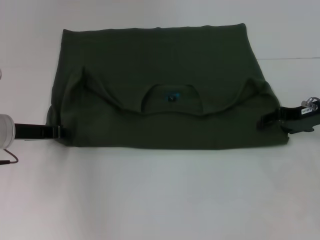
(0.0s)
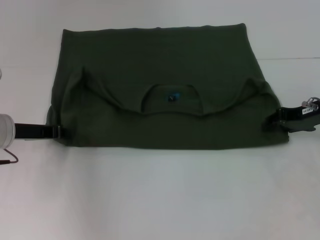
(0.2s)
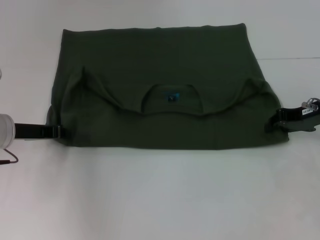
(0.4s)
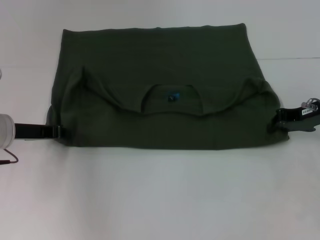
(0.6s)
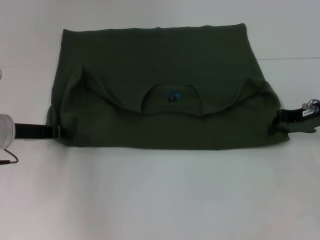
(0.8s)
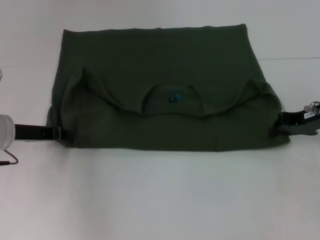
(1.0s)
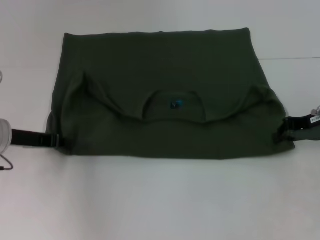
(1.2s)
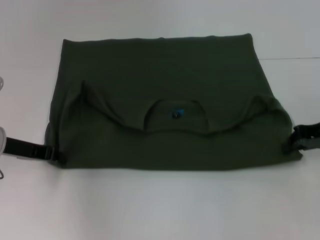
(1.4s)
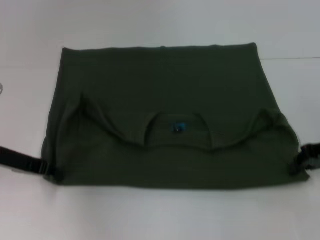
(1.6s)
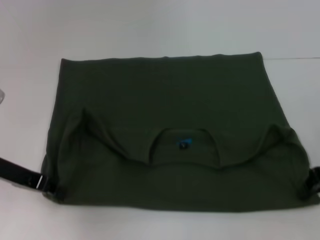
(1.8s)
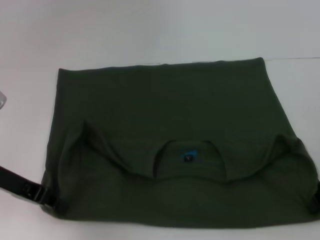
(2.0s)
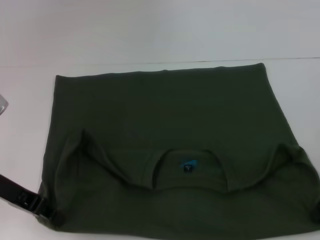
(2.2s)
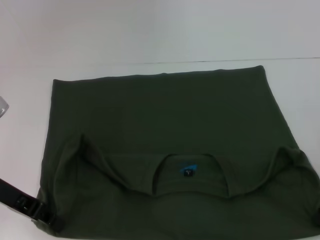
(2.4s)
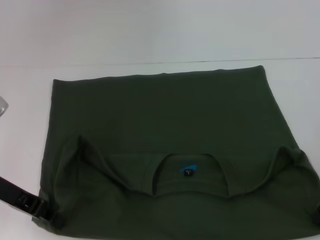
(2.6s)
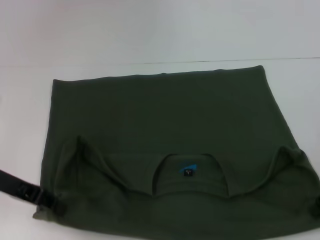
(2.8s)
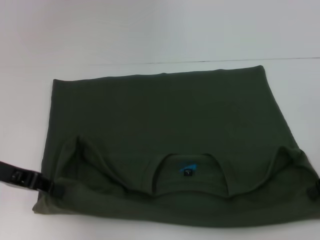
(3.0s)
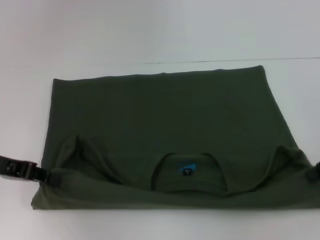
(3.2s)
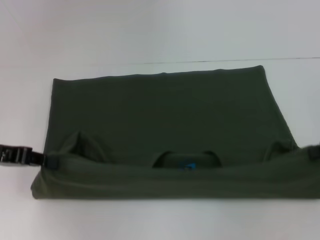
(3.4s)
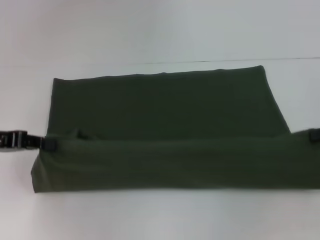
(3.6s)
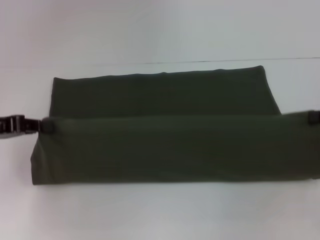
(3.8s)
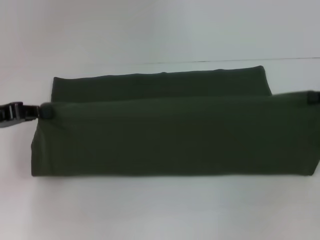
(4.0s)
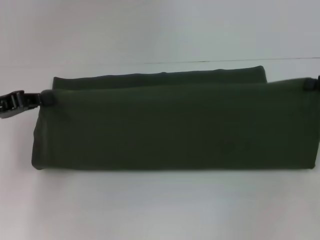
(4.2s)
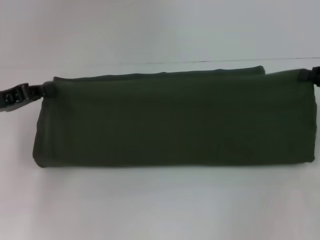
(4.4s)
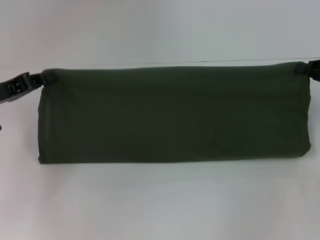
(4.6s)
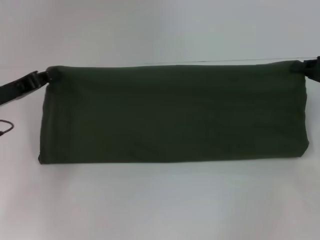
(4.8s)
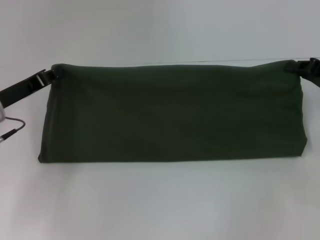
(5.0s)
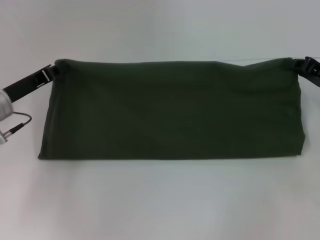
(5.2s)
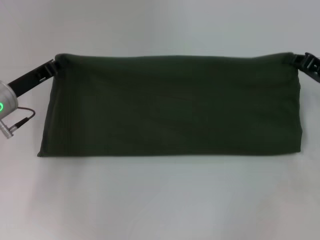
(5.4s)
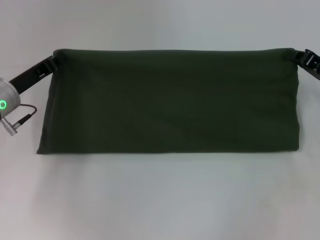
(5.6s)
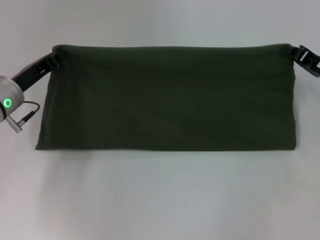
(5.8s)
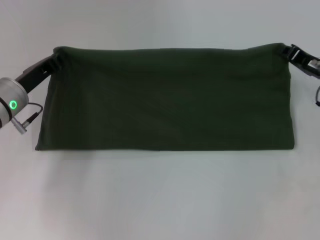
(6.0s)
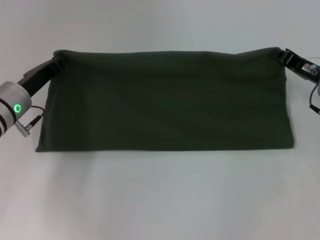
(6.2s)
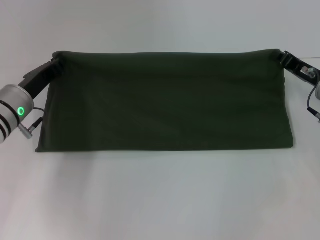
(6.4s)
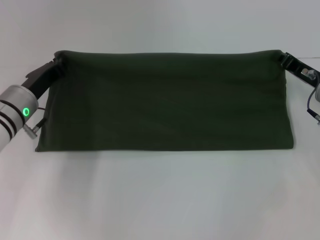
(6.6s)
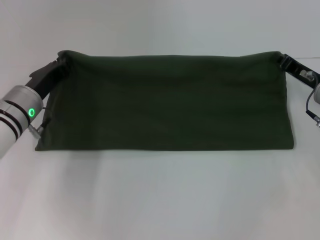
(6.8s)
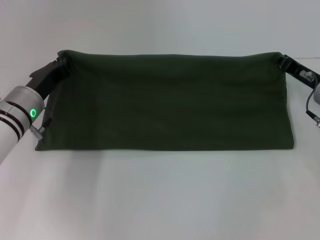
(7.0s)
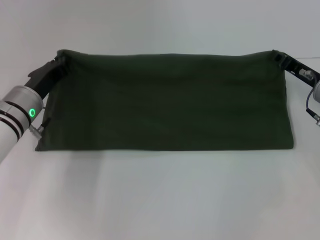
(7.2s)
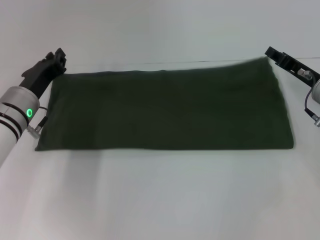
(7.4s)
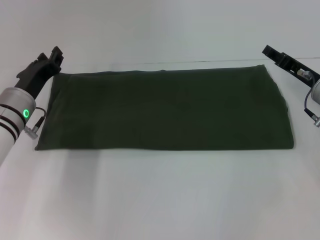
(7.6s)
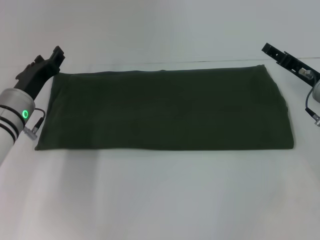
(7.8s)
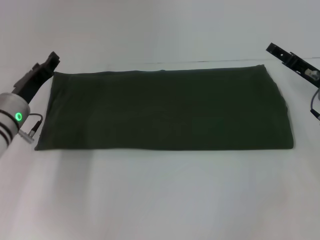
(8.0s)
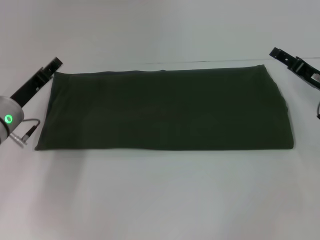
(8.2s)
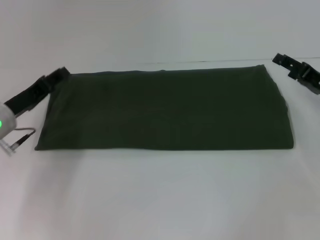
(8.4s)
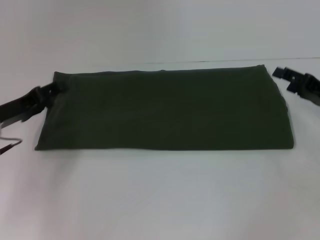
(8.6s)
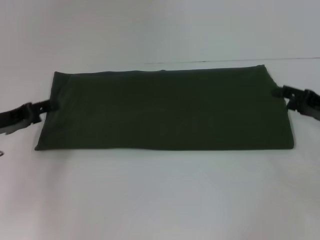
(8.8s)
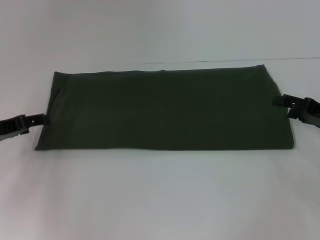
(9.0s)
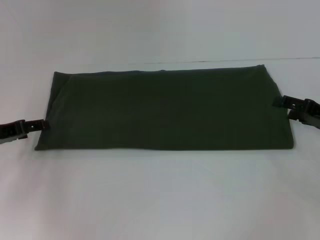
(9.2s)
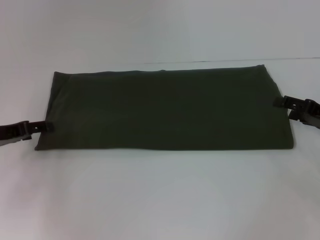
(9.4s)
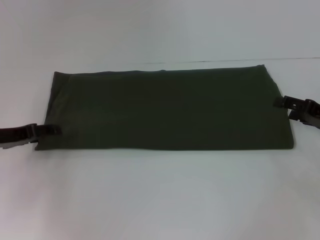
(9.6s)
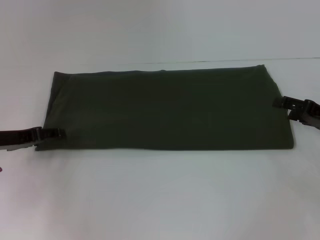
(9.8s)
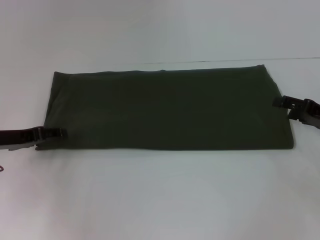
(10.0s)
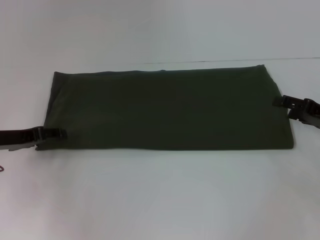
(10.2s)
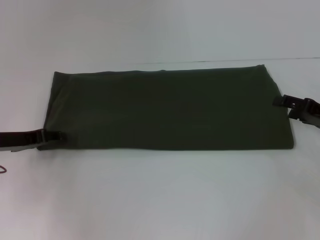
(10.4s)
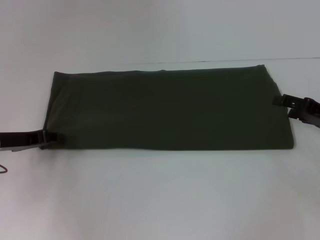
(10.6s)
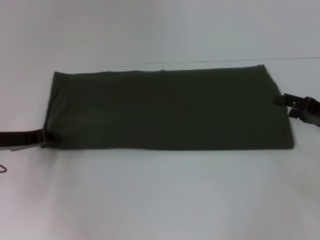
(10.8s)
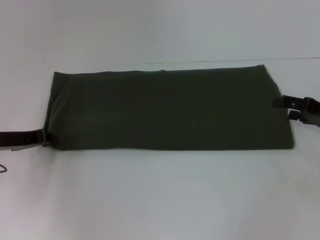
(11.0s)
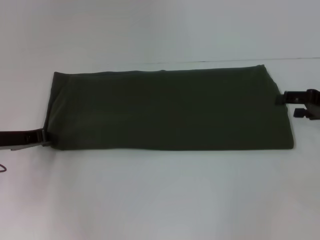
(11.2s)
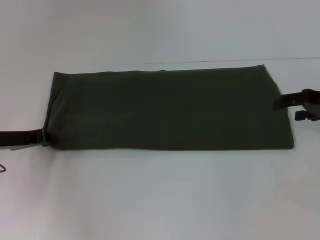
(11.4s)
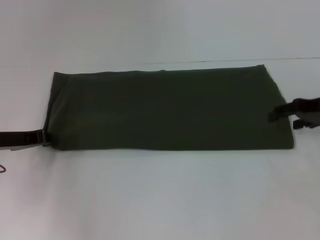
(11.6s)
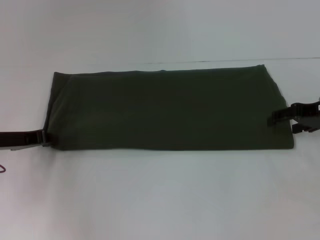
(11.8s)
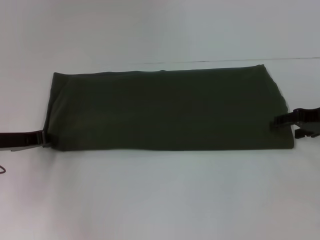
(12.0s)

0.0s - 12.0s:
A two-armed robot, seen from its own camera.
Step, 0.0s - 2.4s: Pull the clothes with your left hand.
Step, 0.0s - 2.4s: Pull the clothes with your right hand.
Step, 2.6s - 7.4s: Fold the clothes with your left hand.
Step, 2.6s - 7.4s: Fold the clothes with your right hand.
0.0s - 1.6s: The right gripper changes place by some 5 cm, and closes up.
4.4s - 6.0s: The left gripper shifts some 10 cm to the right and forward, while the right gripper is displaced to the left by approximately 5 cm.
6.0s - 7.6s: The right gripper opens.
7.6s - 9.0s: The left gripper is displaced to the left by approximately 10 cm, and opens up, while the right gripper moves to the right and backward, some 10 cm, and opens up.
9.0s - 10.4s: The grippers make only small movements.
10.4s - 12.0s: The right gripper heads upward, covering approximately 5 cm.

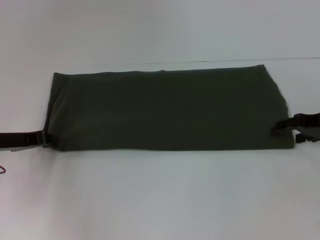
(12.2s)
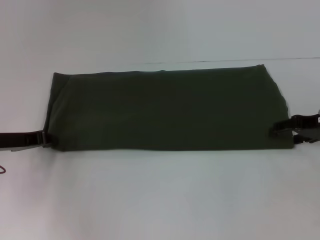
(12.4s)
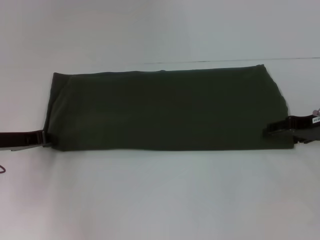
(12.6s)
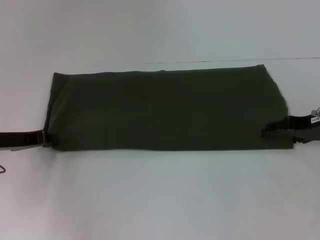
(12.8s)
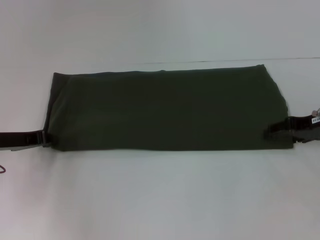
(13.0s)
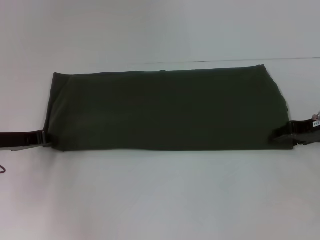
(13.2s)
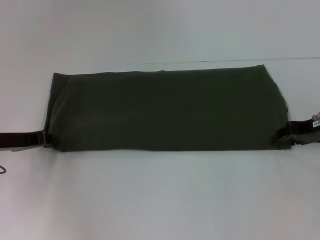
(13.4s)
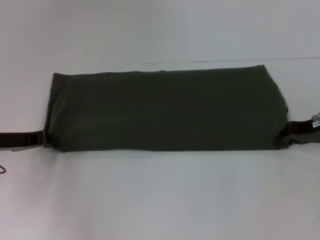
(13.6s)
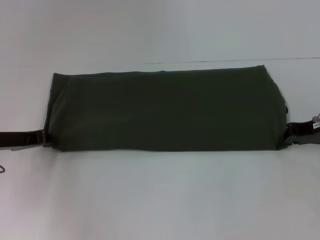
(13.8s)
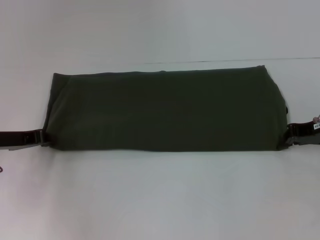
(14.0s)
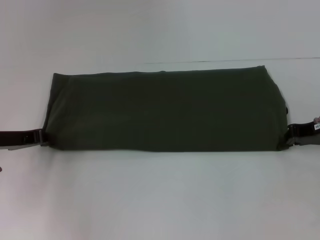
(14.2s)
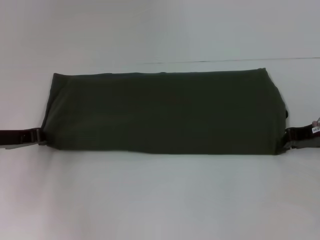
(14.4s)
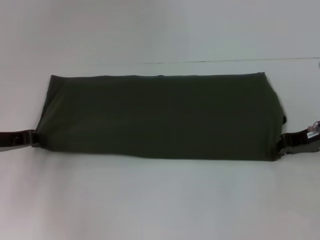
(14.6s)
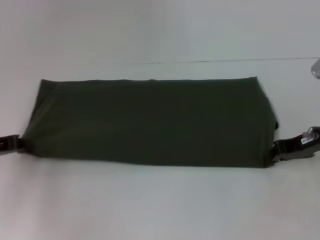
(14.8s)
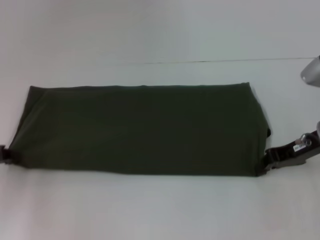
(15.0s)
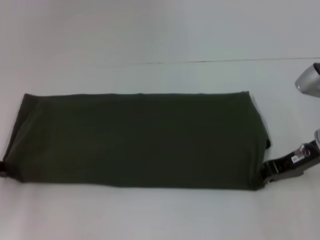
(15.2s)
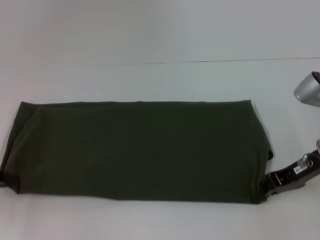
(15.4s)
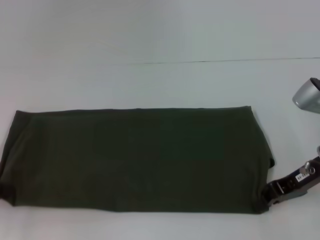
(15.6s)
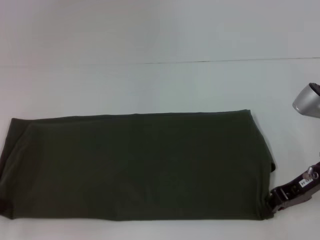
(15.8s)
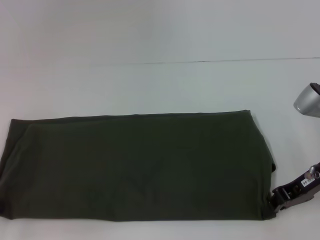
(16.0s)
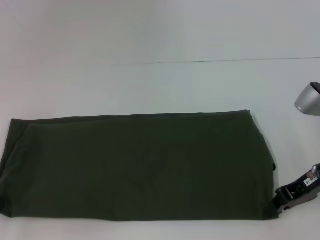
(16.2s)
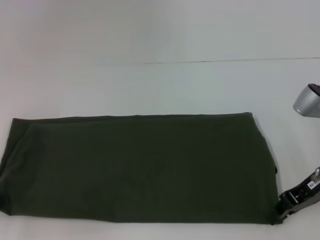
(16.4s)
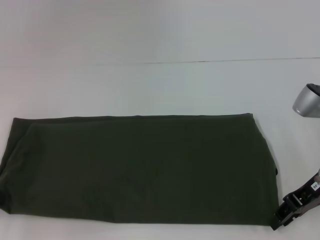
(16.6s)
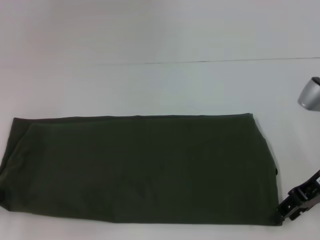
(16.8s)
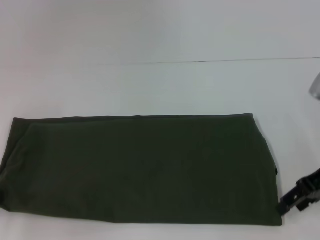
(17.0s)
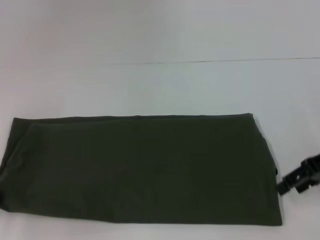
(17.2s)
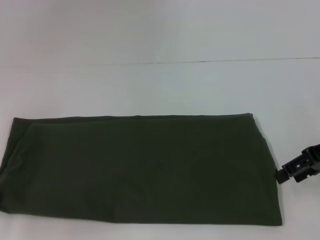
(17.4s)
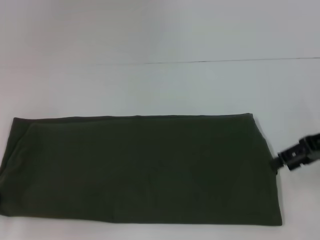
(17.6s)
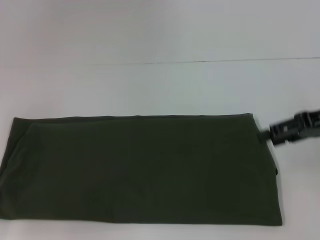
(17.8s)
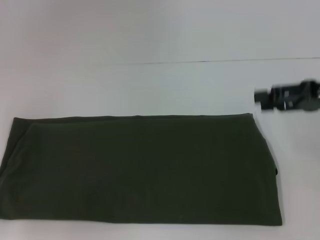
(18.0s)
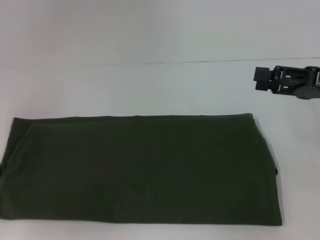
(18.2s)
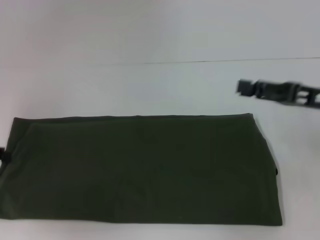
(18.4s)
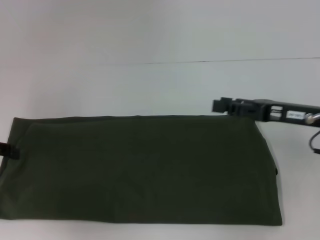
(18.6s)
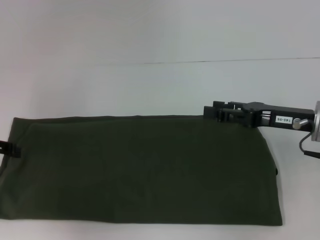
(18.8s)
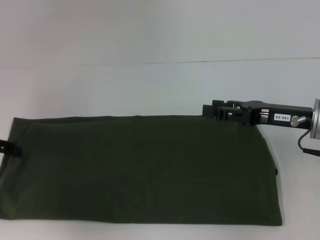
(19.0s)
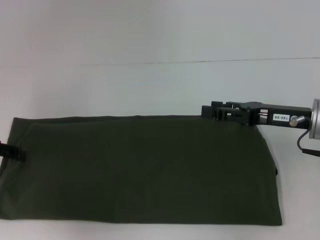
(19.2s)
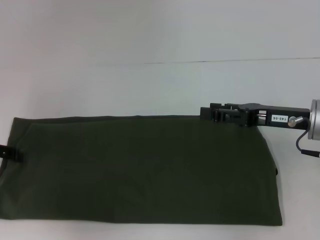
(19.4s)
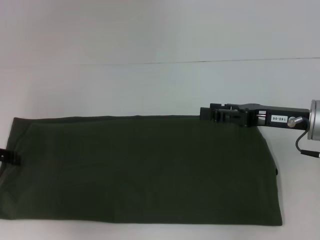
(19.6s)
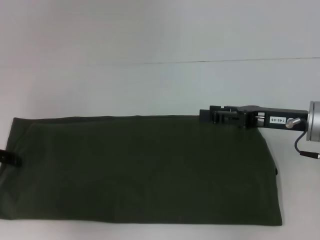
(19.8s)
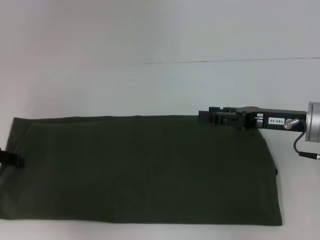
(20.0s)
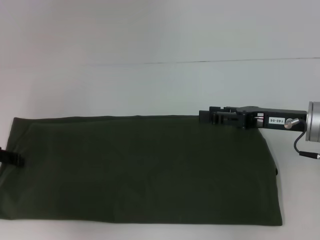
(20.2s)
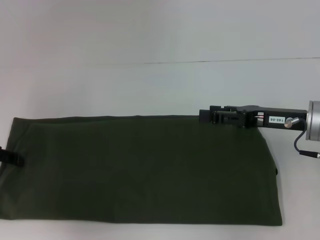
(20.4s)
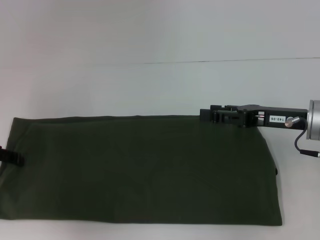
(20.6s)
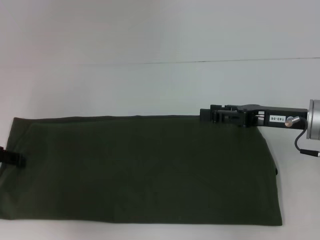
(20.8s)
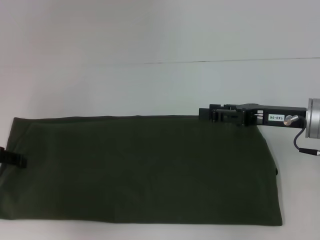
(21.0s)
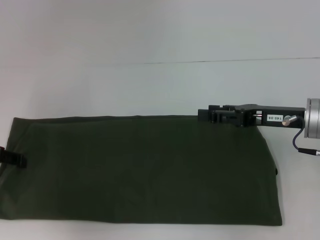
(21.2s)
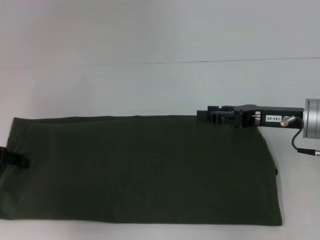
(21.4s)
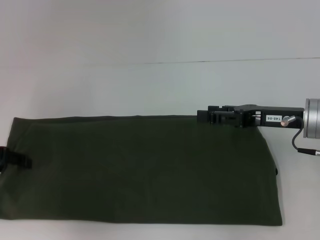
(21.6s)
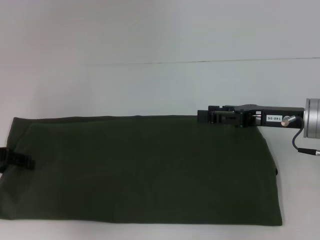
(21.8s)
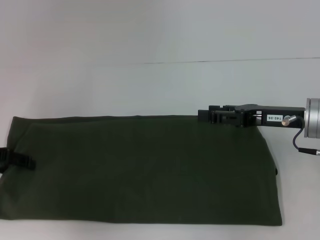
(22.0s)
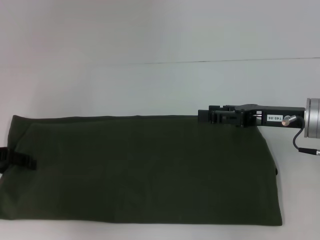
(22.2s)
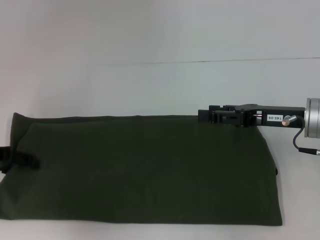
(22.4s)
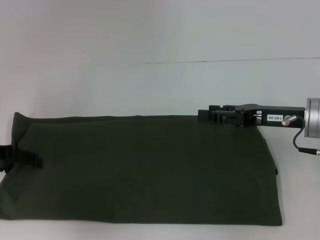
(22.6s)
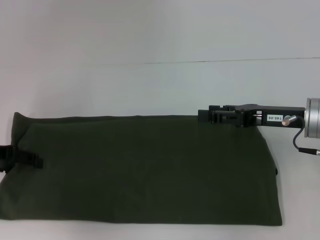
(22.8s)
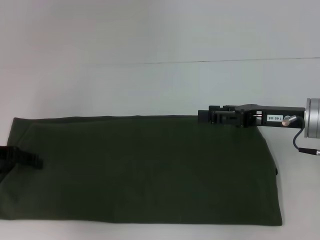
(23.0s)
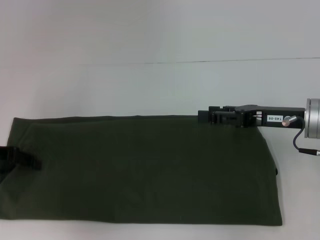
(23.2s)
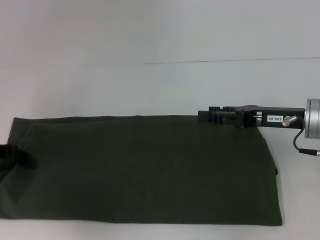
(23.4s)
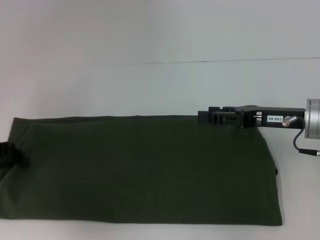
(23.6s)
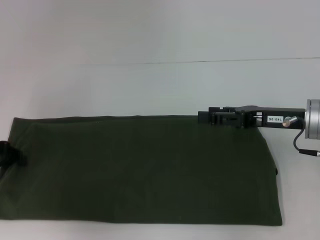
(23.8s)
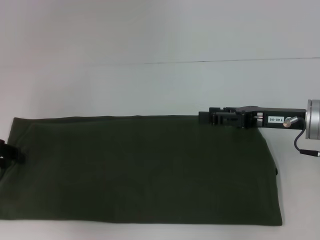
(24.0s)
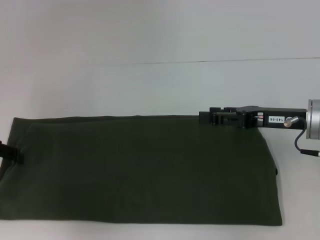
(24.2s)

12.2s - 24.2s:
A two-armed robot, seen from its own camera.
Step, 12.2s - 17.2s: Pull the clothes with your left hand.
Step, 12.2s - 17.2s: Pull the clothes with your right hand.
12.2s - 13.8s: The right gripper closes its fingers.
13.8s - 15.2s: The right gripper shifts by about 5 cm, while the left gripper heads to the left and backward, covering some 10 cm.
16.6s - 18.2s: The right gripper changes place by approximately 5 cm, and opens its fingers, while the left gripper opens.
18.2s - 19.8s: The right gripper shifts approximately 10 cm to the left and downward.
19.8s - 21.2s: Both grippers stay about where they are.
22.6s - 24.2s: The grippers make only small movements.
